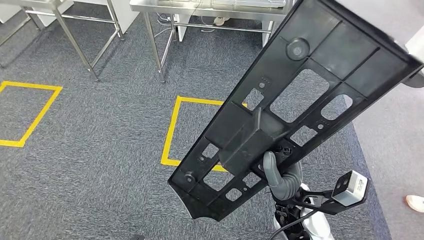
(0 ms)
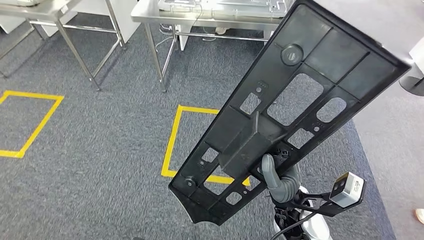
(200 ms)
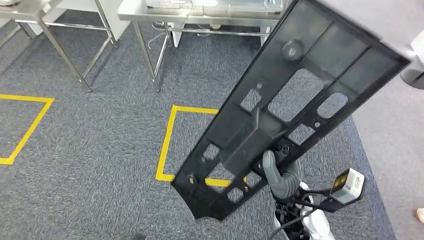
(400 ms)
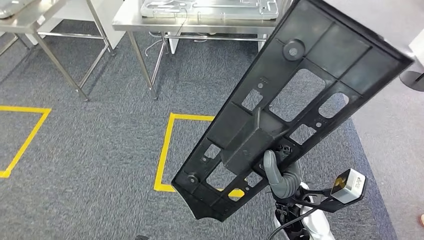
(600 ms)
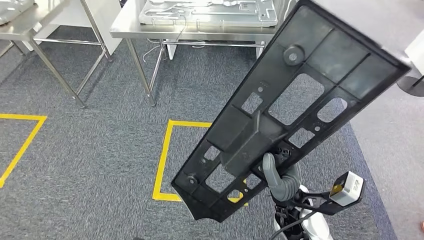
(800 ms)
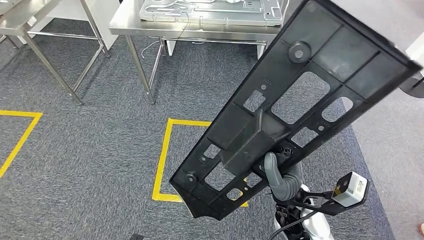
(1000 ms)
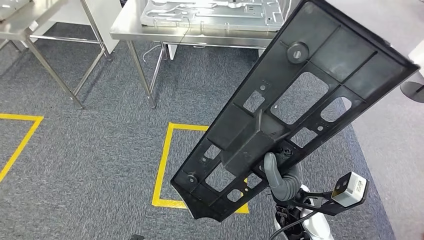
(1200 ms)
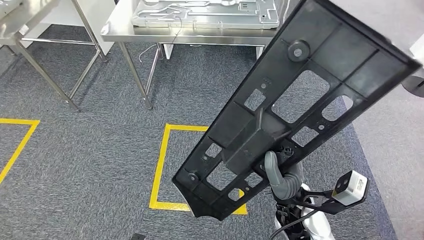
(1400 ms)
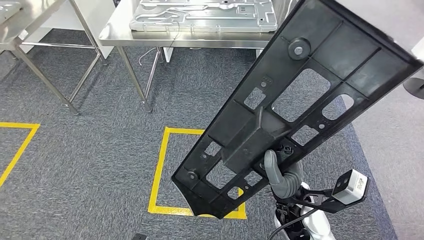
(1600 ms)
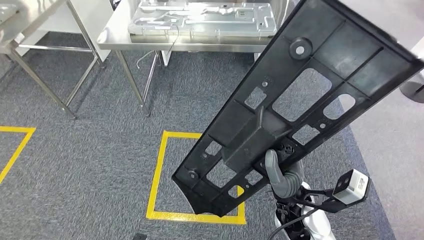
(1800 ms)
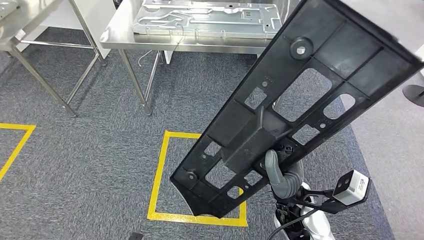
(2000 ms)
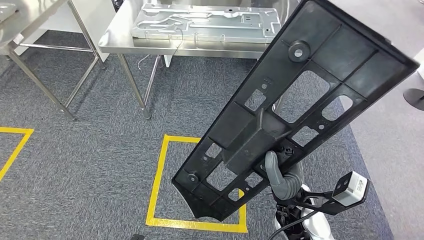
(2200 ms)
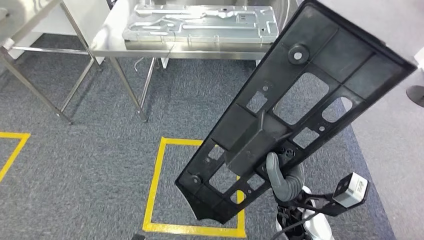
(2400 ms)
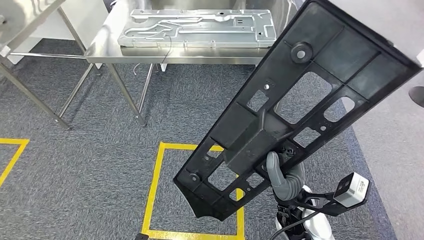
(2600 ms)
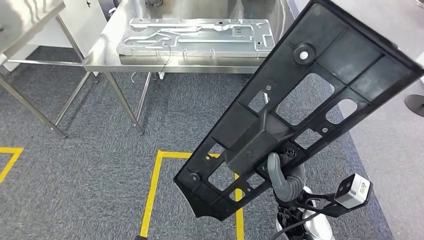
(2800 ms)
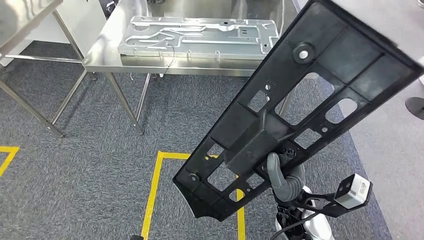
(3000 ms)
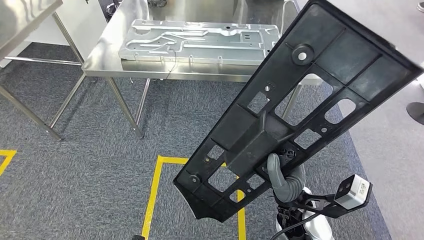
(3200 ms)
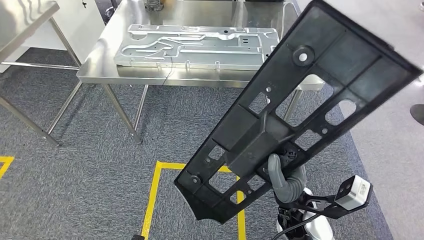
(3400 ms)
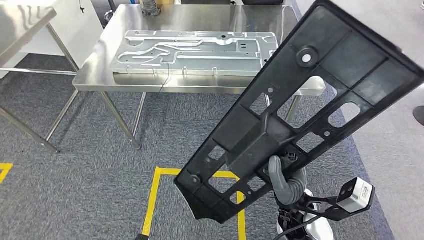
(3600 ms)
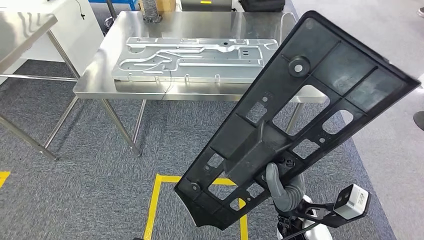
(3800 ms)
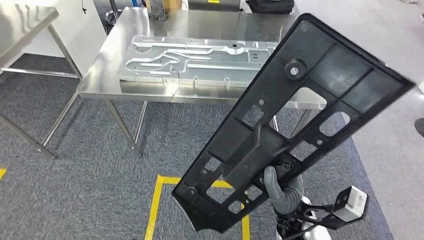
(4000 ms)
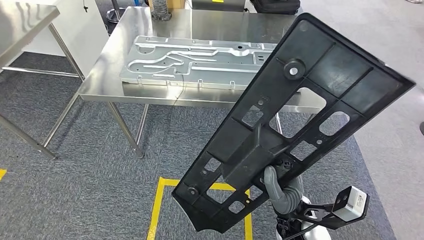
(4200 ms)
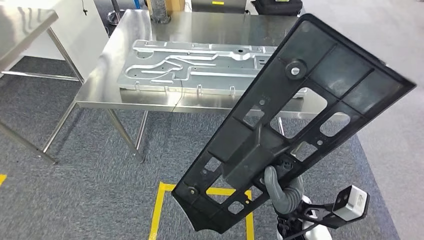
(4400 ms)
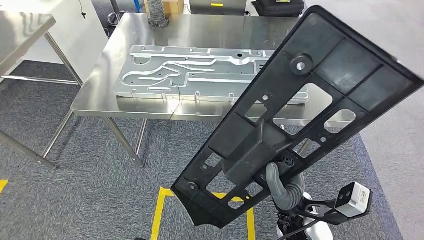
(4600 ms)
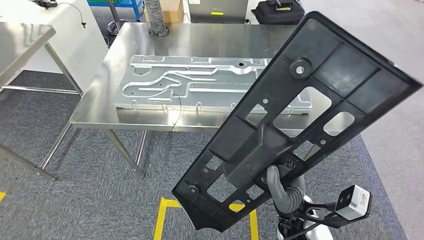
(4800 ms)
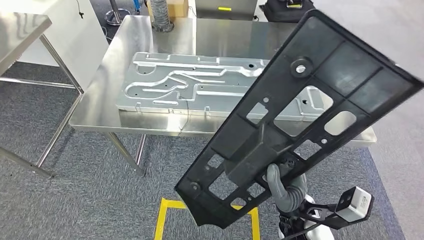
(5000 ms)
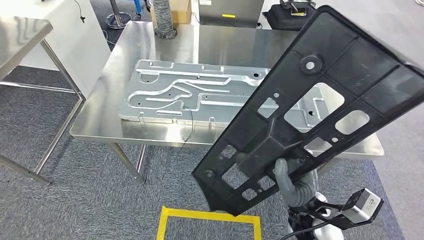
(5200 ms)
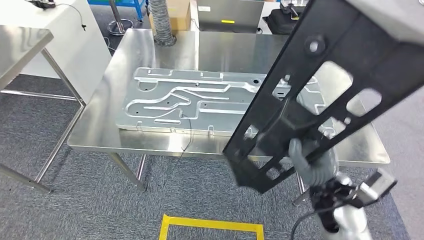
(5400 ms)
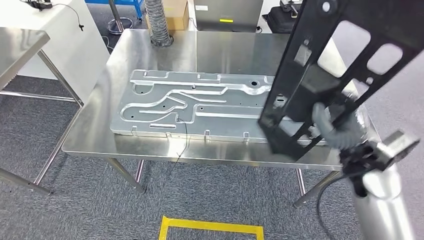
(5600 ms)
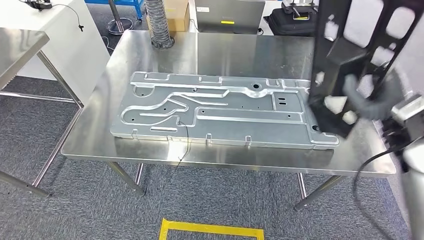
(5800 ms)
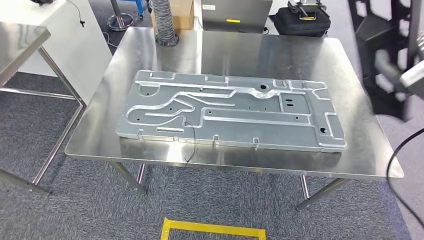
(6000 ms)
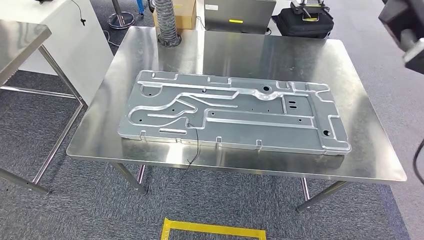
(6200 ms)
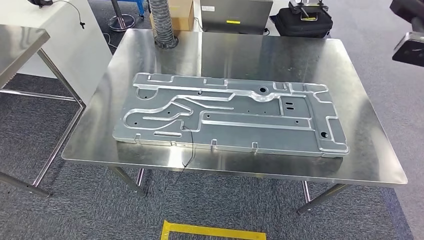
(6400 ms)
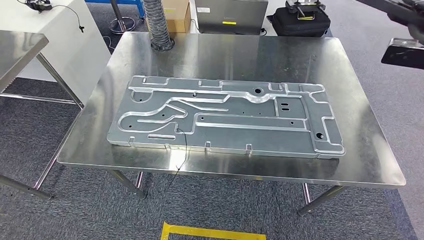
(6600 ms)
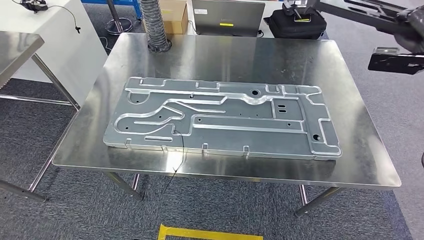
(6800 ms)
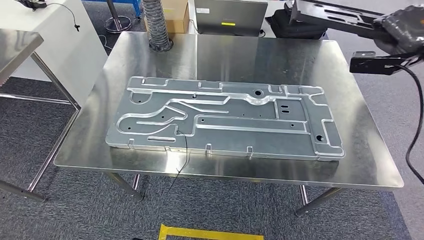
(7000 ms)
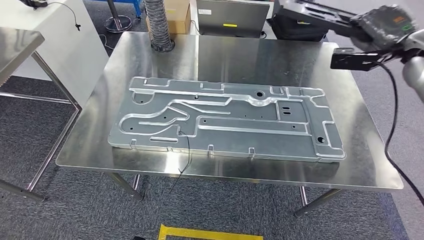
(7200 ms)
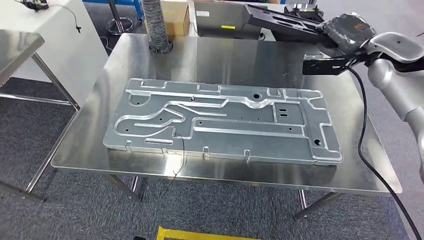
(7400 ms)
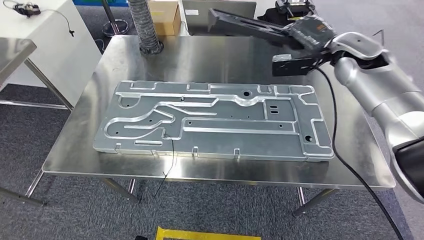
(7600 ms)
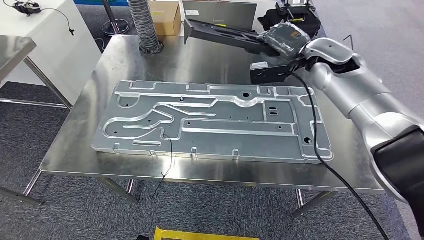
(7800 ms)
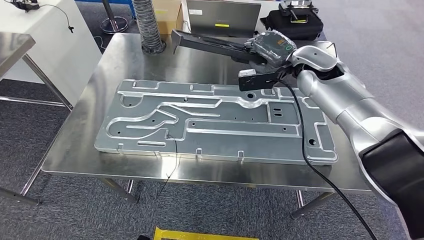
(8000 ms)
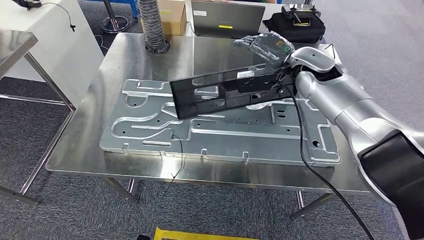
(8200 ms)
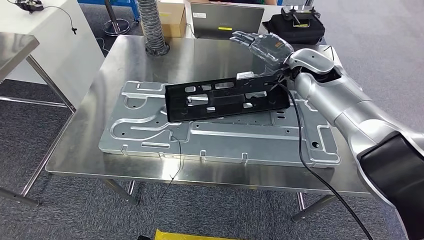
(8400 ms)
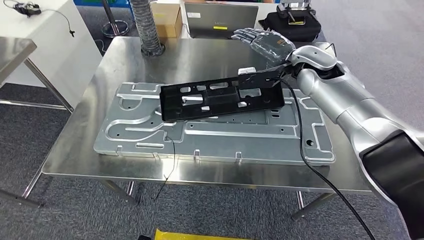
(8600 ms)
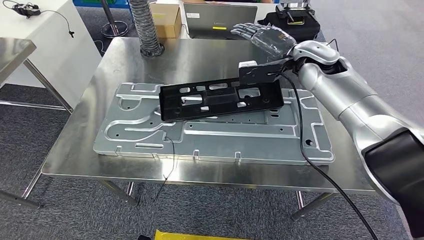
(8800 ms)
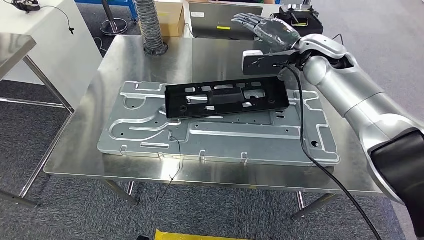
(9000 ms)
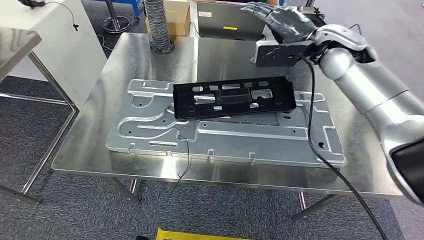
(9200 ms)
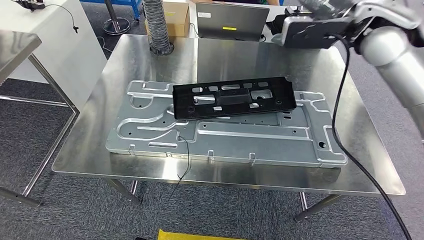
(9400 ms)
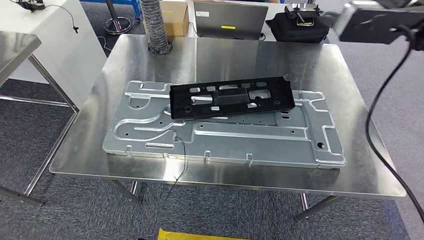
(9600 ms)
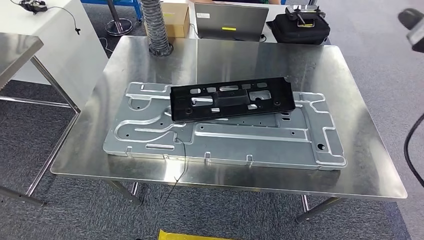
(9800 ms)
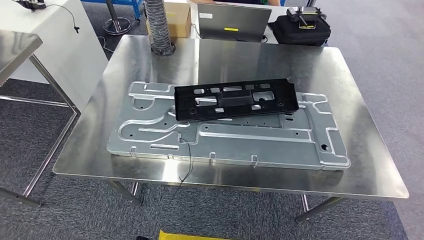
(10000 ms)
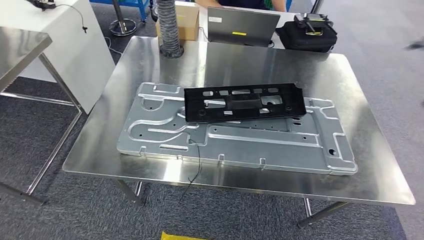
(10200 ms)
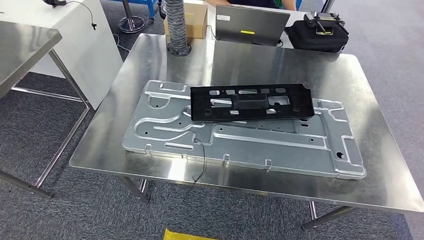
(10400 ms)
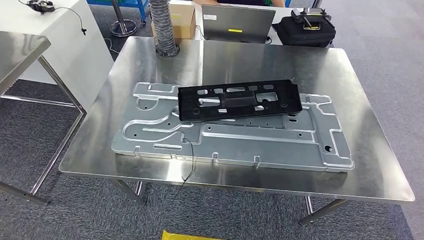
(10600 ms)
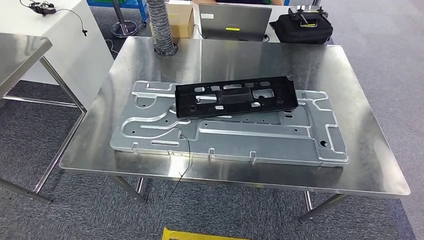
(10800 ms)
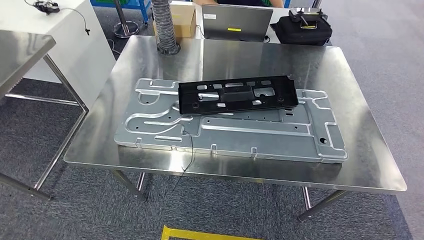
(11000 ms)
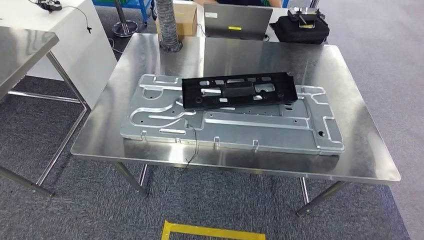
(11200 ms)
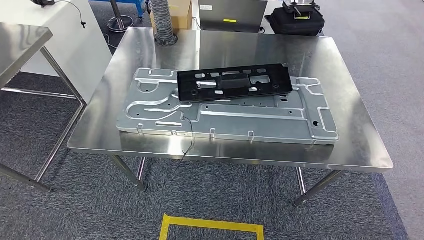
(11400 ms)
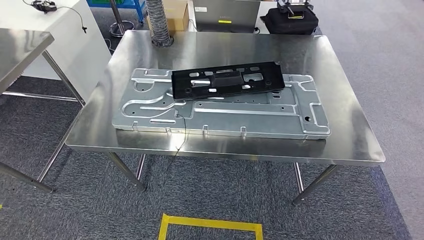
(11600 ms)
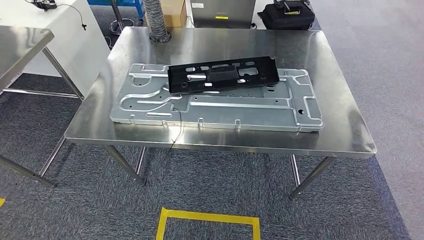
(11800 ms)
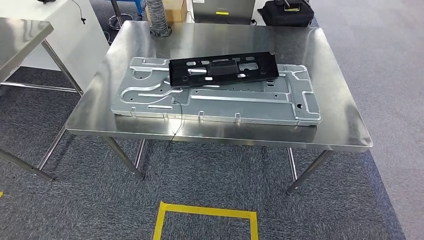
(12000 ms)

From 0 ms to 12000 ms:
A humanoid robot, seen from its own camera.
Step, from 0 ms to 6600 ms: Move the large material to the workbench.
Step, from 6800 ms to 9800 ms: Insert the large material into the corresponding slot on the workbench.

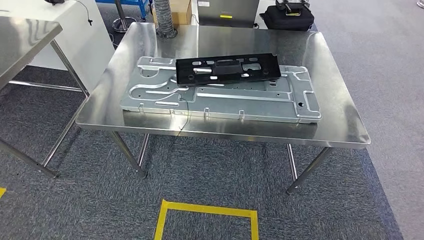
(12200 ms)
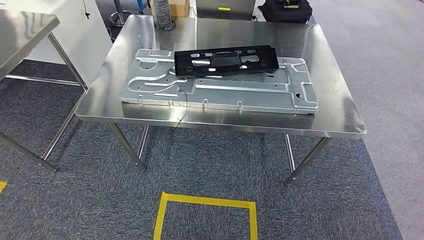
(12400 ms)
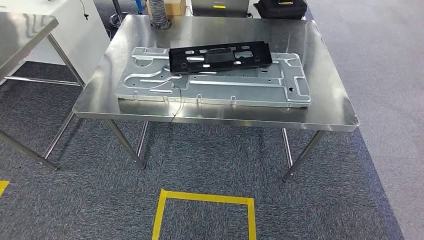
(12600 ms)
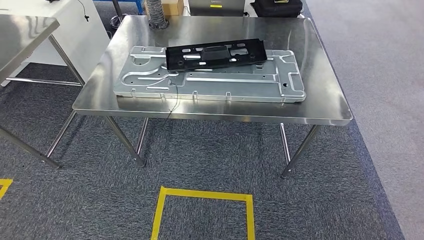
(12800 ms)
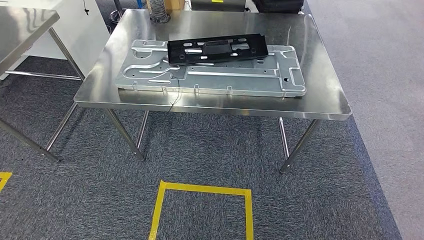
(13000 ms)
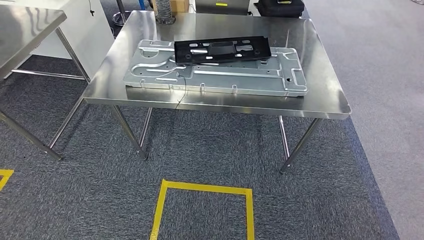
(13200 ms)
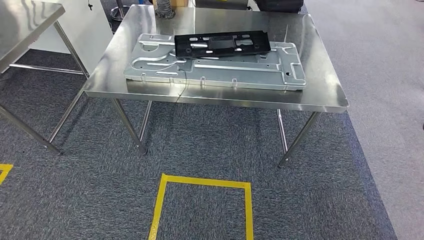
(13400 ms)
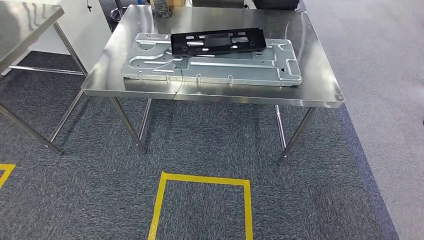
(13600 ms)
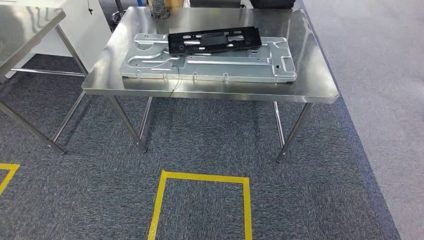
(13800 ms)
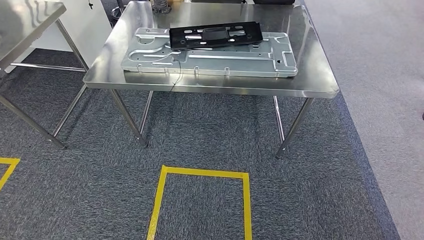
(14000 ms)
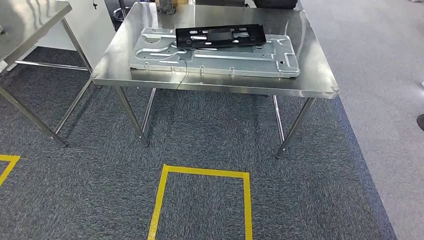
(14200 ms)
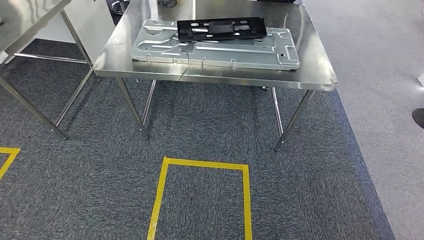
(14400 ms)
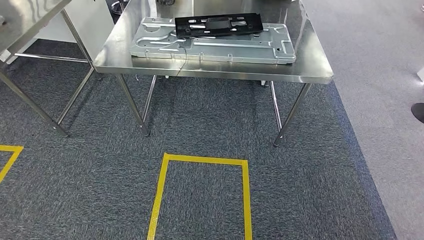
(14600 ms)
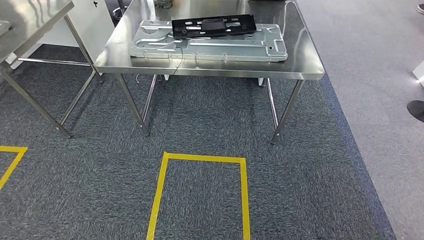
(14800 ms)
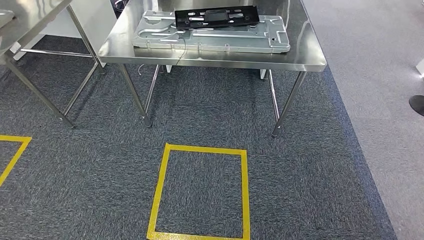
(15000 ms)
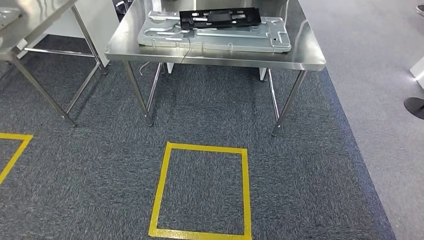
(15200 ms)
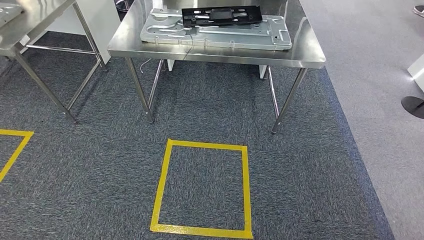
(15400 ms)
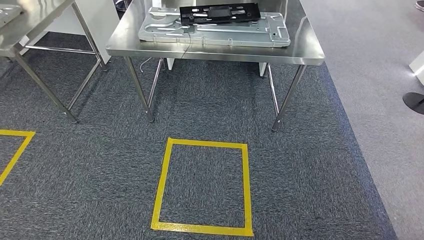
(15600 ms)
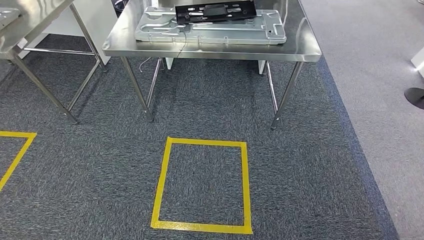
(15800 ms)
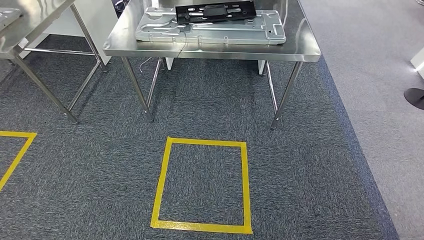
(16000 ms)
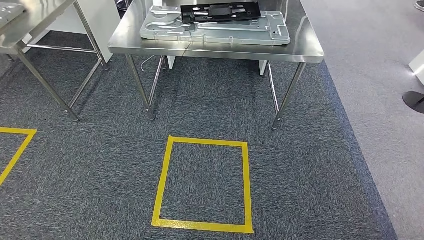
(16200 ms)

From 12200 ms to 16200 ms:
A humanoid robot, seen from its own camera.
Step, from 12200 ms to 16200 ms: Return to the initial position at the shelf.

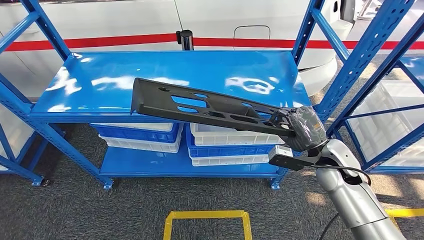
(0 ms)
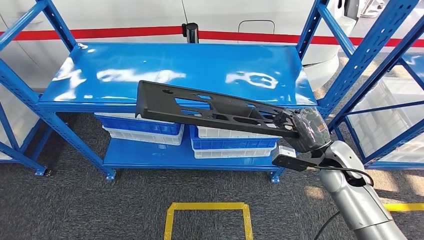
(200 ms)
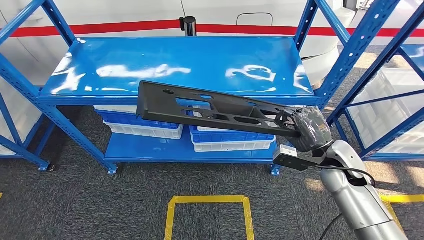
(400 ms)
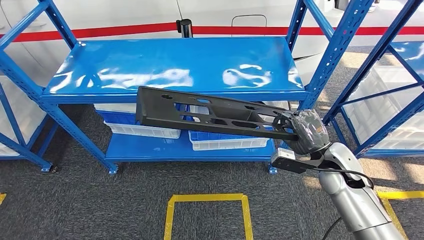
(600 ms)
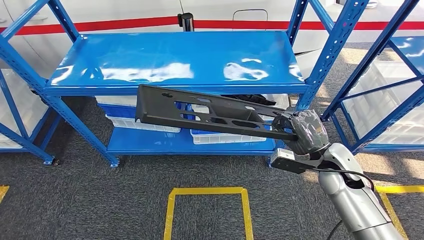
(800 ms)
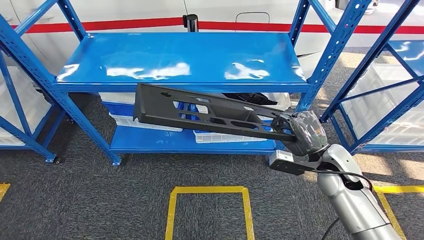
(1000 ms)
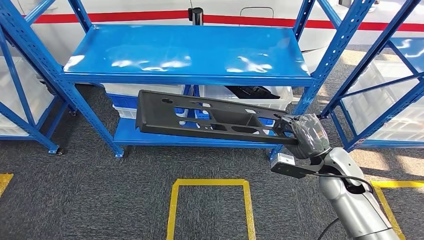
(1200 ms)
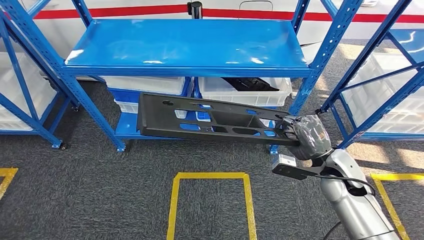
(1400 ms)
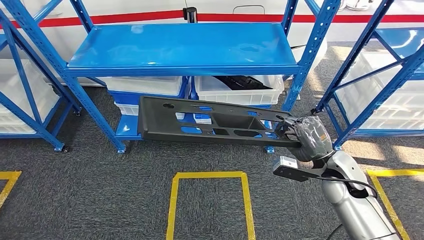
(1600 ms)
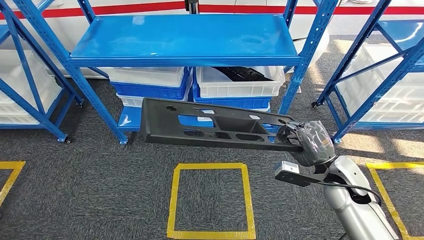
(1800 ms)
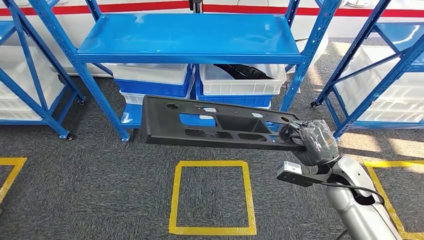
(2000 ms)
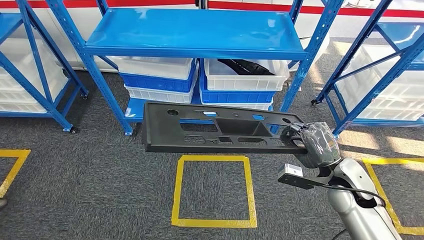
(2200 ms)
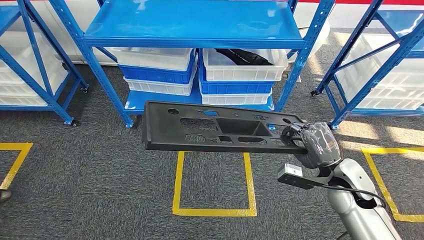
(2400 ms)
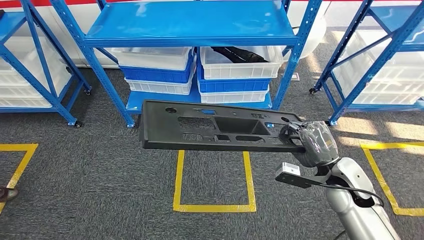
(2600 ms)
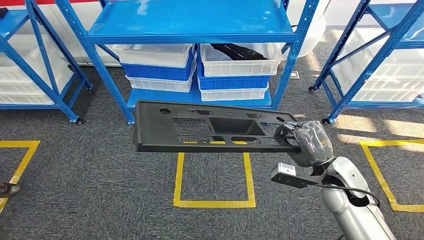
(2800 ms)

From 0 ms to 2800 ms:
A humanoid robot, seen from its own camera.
Step, from 0 ms to 2400 ms: Pick up the large material from the shelf.
